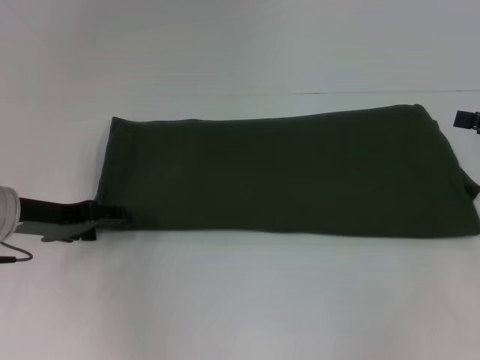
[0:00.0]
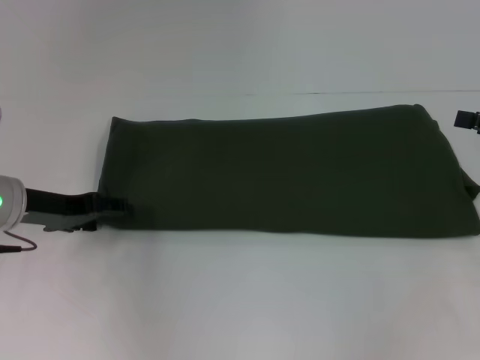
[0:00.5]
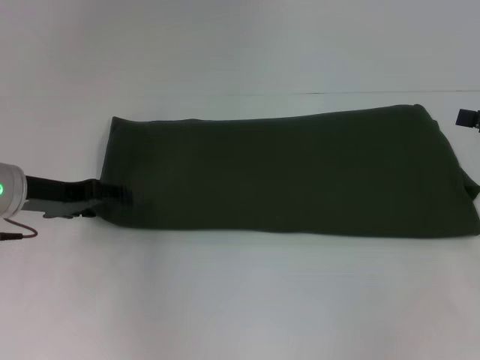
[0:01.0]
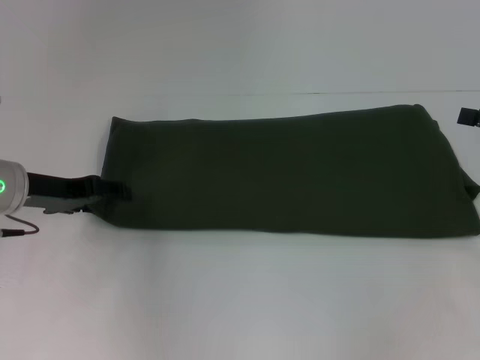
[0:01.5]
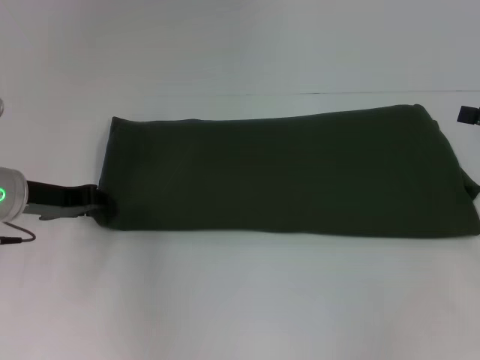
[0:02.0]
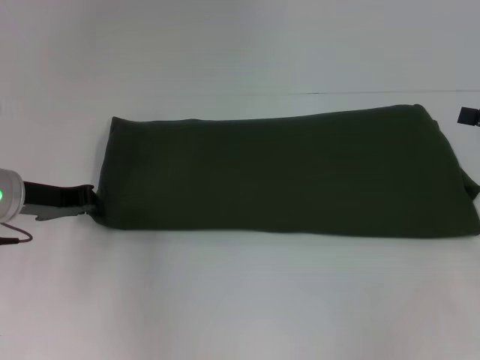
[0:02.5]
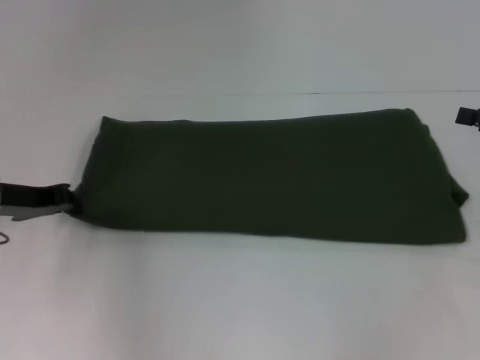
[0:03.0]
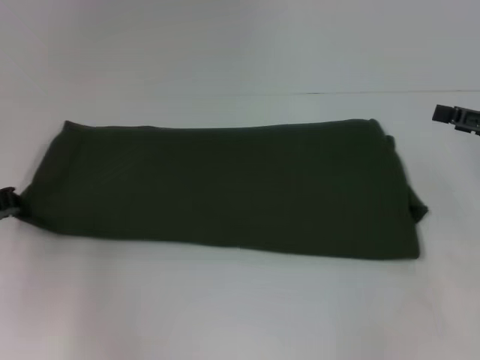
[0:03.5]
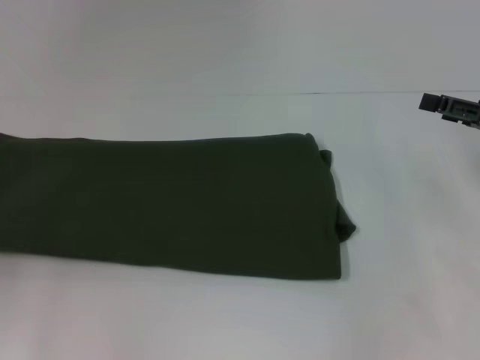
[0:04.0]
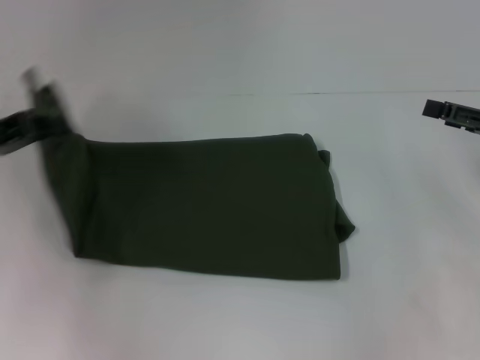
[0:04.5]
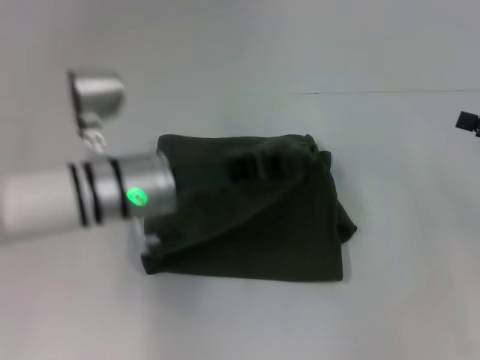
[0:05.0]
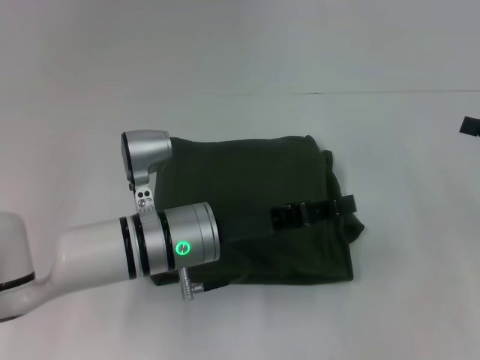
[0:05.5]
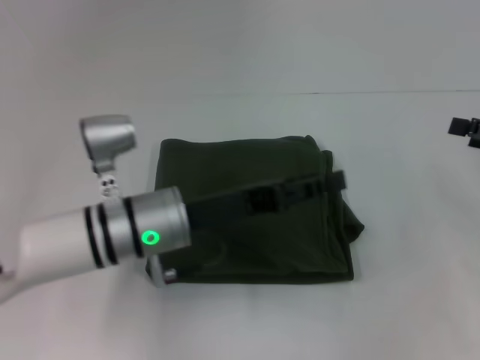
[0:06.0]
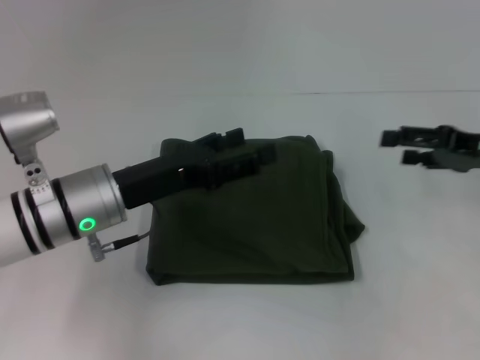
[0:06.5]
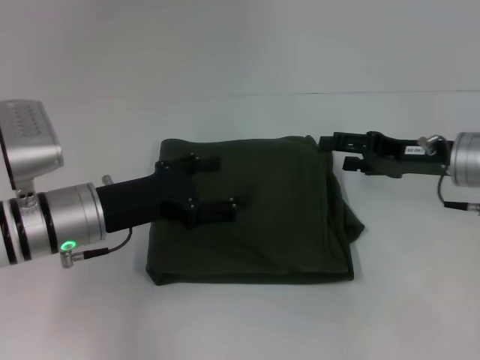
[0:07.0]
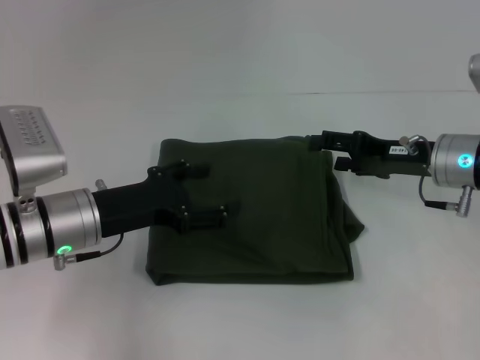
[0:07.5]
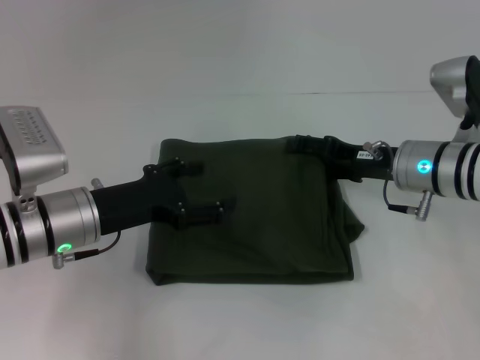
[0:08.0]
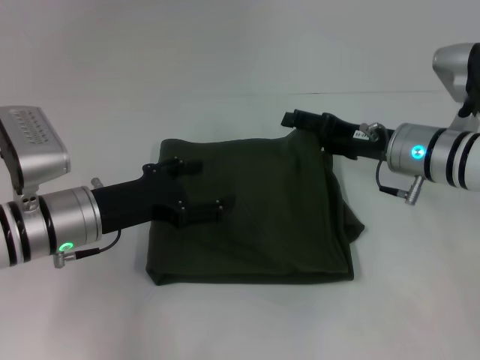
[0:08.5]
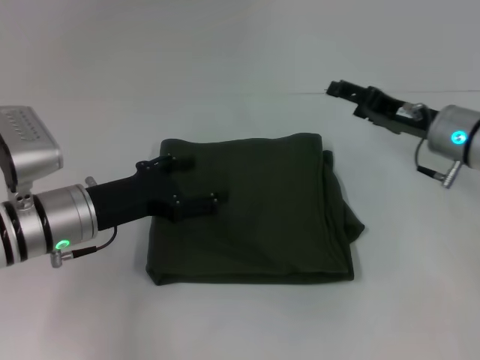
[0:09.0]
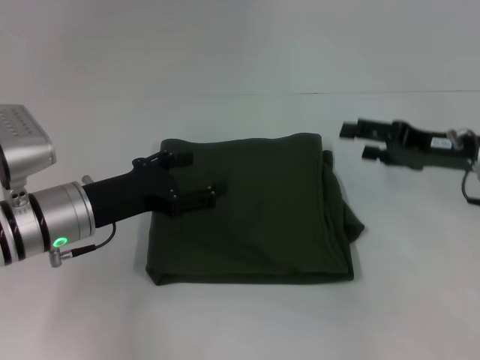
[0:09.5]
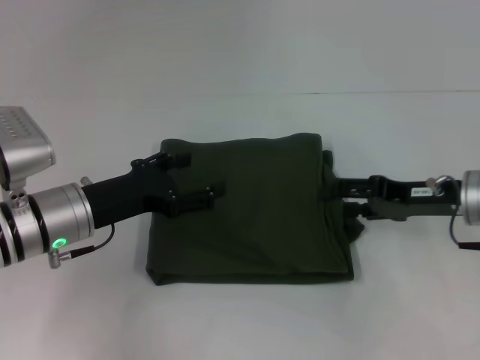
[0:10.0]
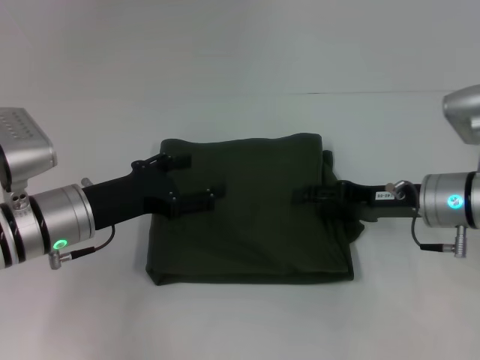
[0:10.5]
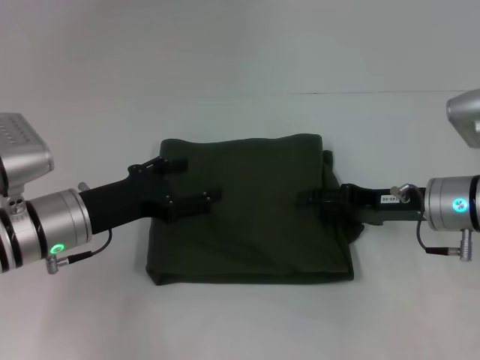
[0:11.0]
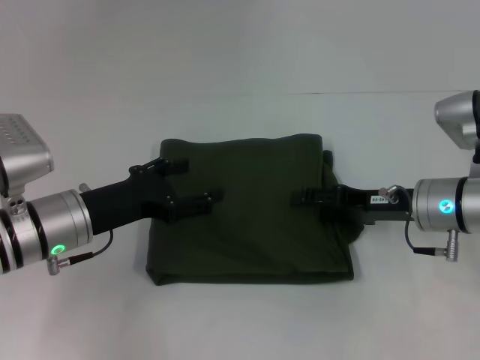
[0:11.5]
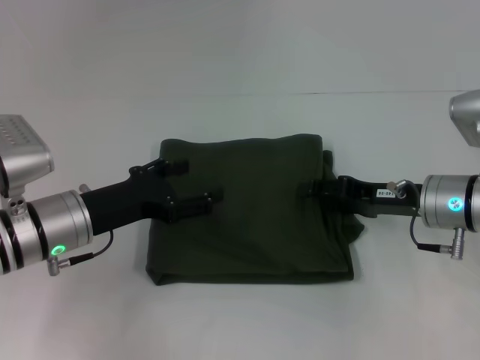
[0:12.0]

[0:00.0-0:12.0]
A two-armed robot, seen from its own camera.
Step, 0:00.0 to 0:06.0: Fold the clothes with your left hand.
0:00.0 to 0:02.0: The left gripper closes its fingers.
0:02.0 to 0:04.0: The left gripper moves to the left and backward, some 15 cm, and closes.
0:04.0 to 0:06.0: The left gripper moves to the right, approximately 30 cm, and opens its fingers.
0:06.0 to 0:08.0: The left gripper shifts about 10 cm to the left, and opens its fingers, while the right gripper shifts about 15 cm to the left.
0:08.0 to 0:10.0: The right gripper heads to the right, covering about 5 cm.
0:10.0 to 0:12.0: The grippers make only small movements.

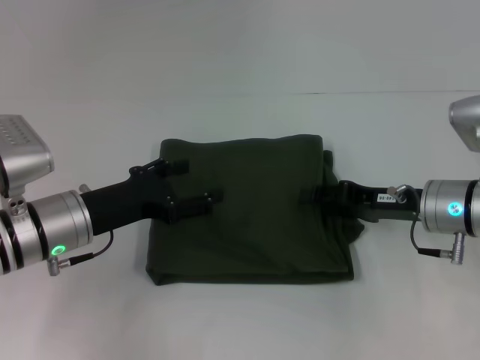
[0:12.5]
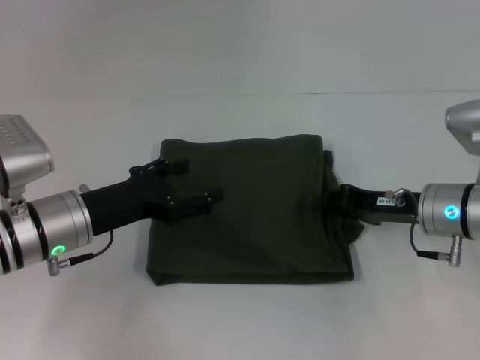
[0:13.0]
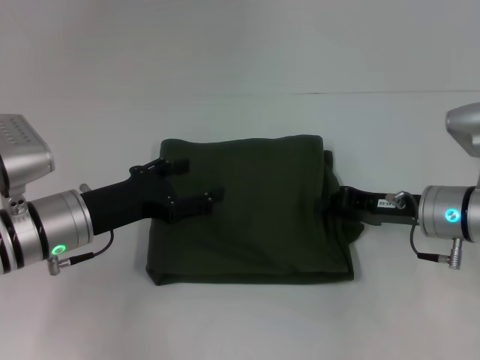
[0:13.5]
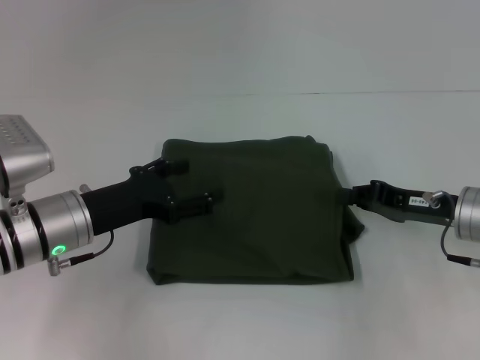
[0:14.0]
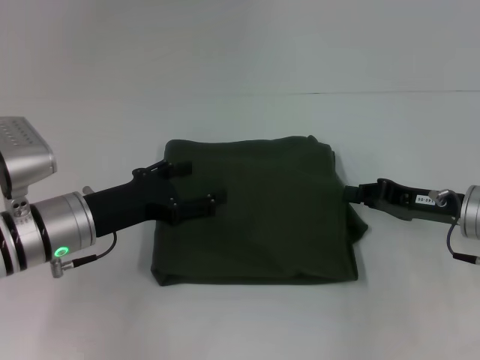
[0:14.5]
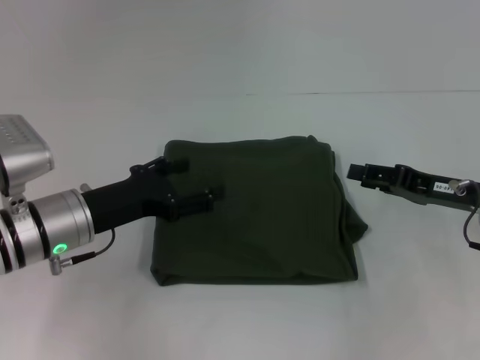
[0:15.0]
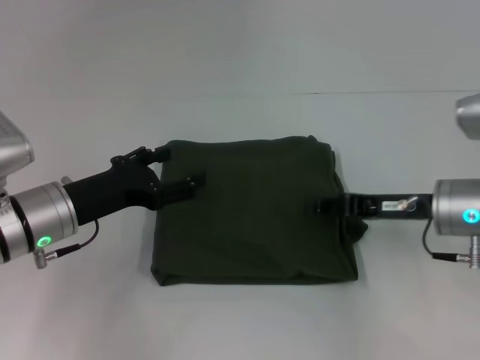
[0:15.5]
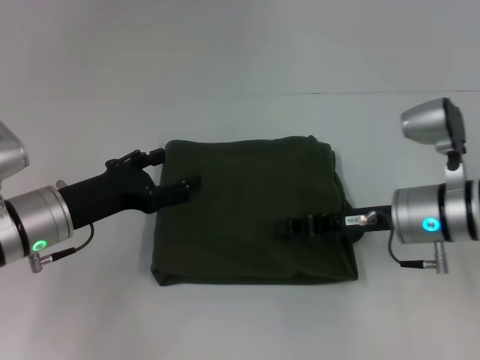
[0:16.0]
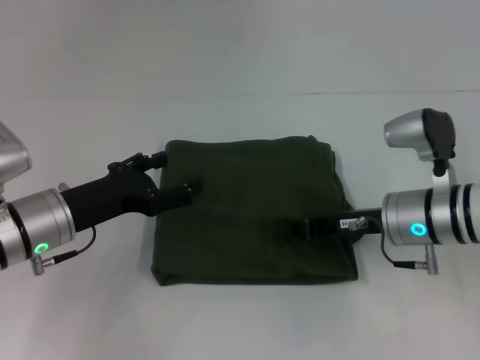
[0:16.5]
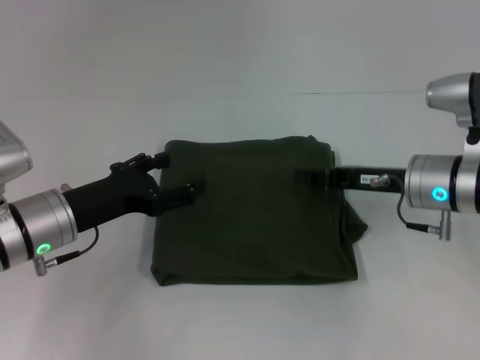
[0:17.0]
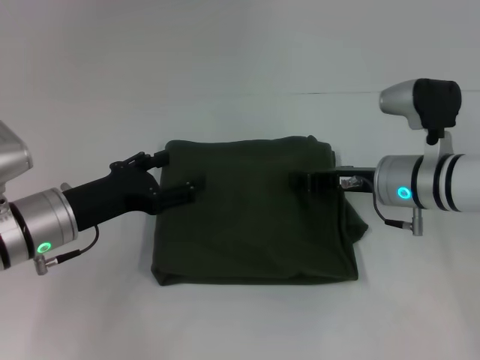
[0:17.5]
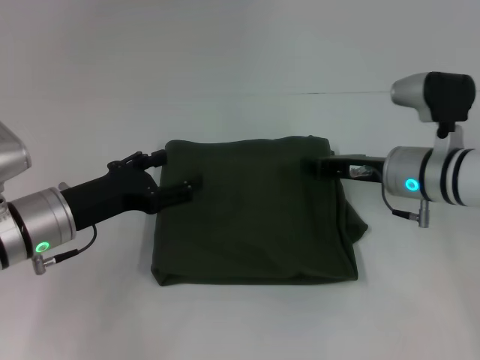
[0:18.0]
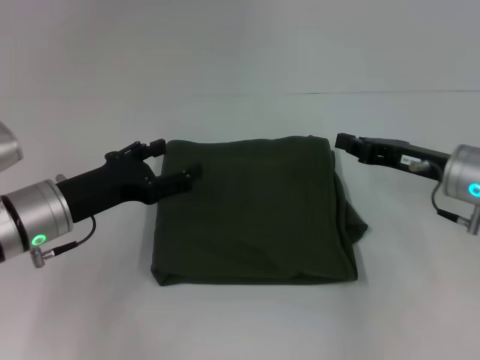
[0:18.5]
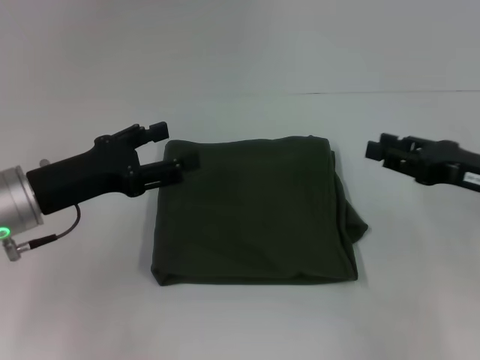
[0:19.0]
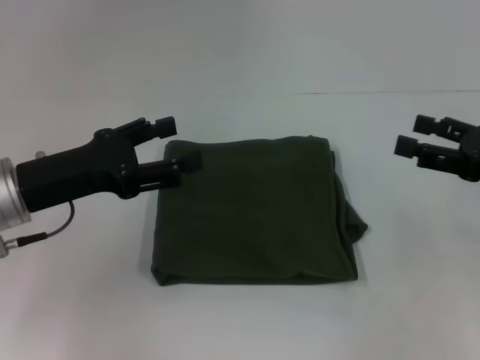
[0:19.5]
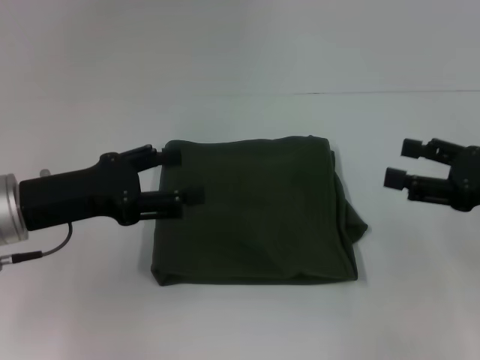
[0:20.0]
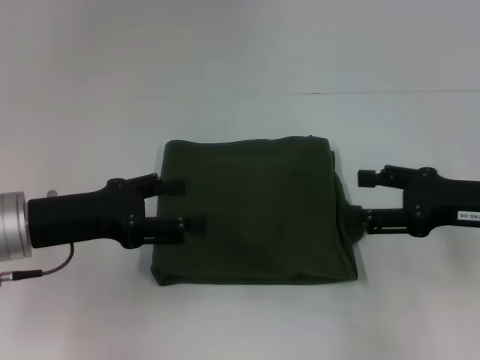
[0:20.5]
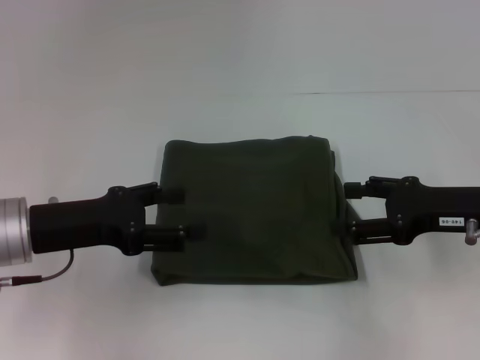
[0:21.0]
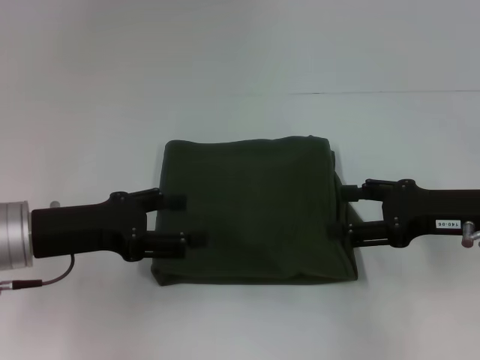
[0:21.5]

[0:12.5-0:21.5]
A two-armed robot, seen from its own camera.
0:12.5 to 0:14.5: The right gripper closes its fingers.
0:14.5 to 0:17.0: The right gripper travels to the left by approximately 5 cm, and opens and closes again.
0:17.0 to 0:19.5: The right gripper is displaced to the right and backward by about 15 cm, and opens up; the left gripper travels upward by some 5 cm.
0:19.5 to 0:21.5: The right gripper heads to the left, covering roughly 5 cm.

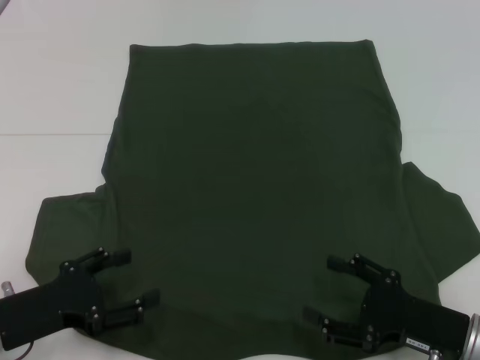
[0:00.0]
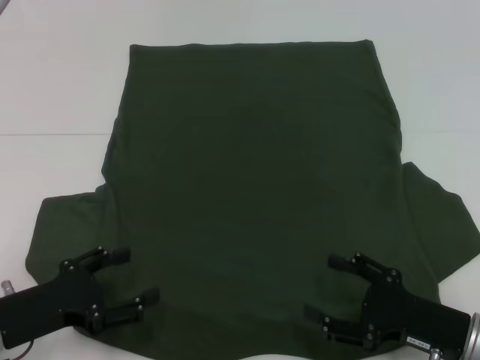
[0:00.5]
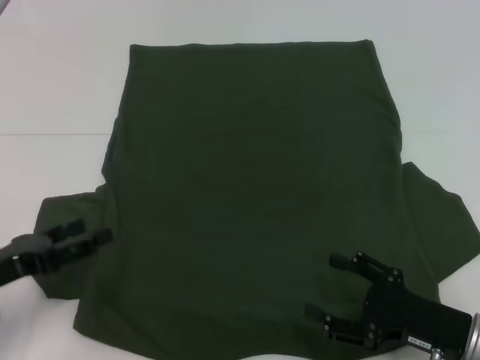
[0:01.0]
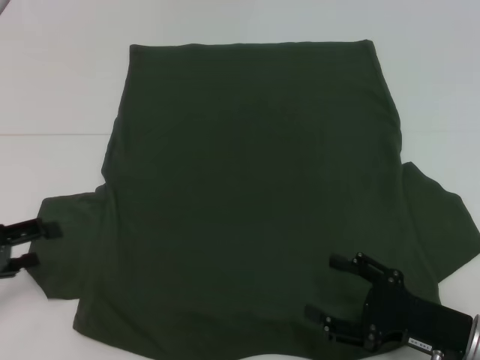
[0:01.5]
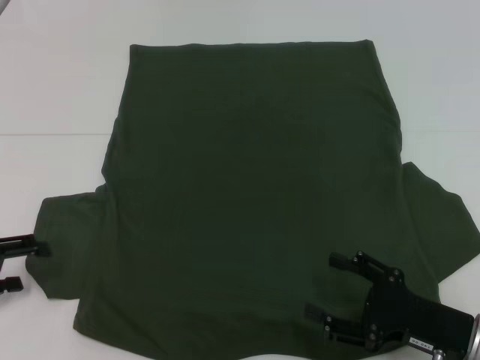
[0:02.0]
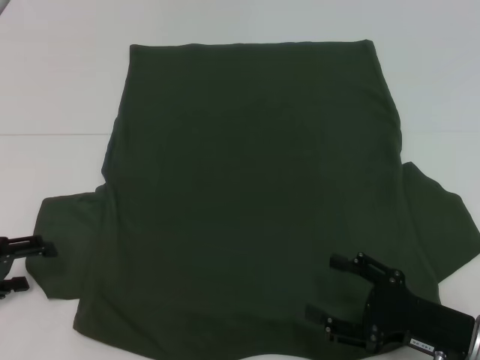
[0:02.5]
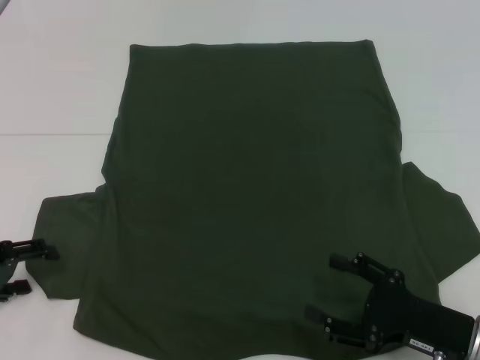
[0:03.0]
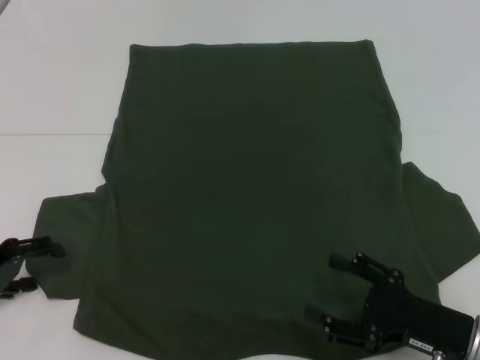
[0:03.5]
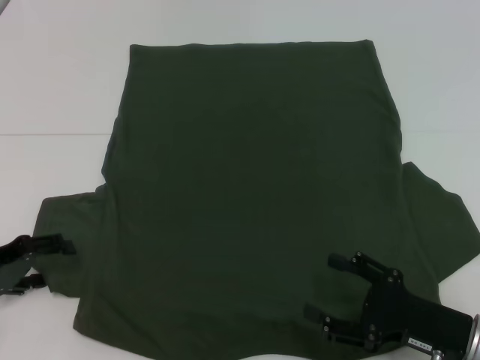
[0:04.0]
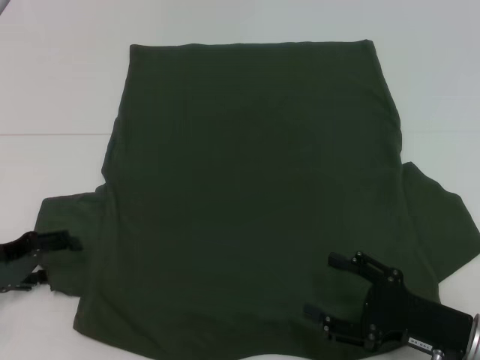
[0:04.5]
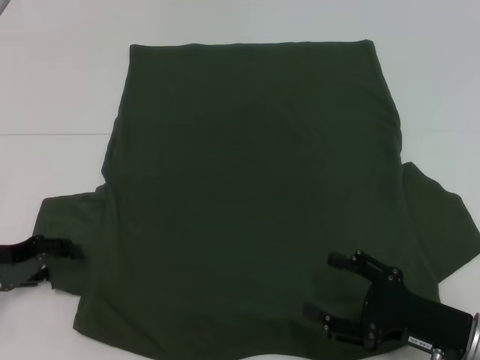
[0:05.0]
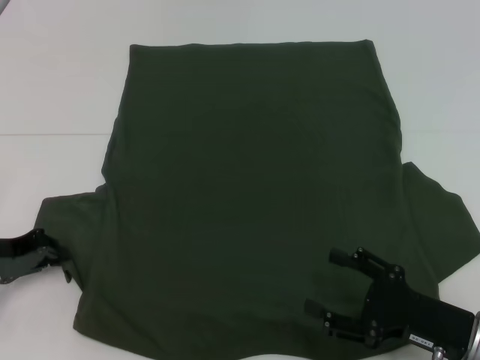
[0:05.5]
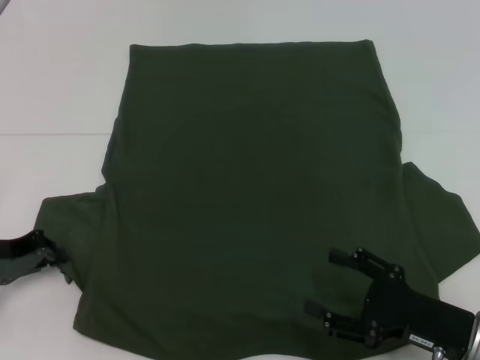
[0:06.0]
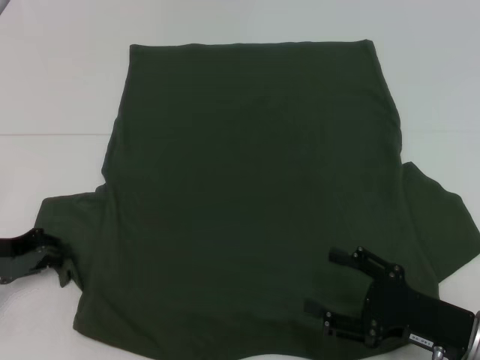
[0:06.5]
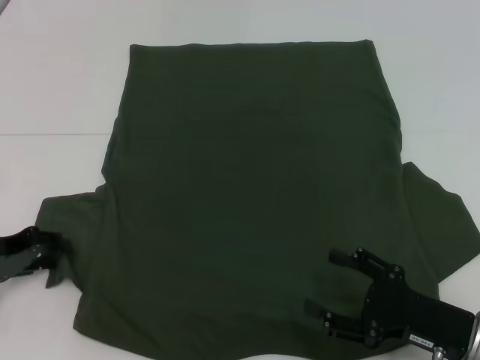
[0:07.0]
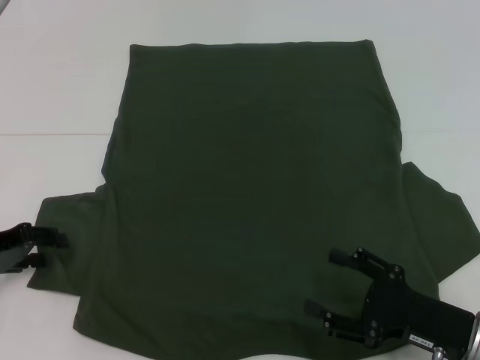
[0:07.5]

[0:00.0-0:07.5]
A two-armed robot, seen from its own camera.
0:00.0 to 0:02.0: The left gripper shifts about 10 cm to the left and forward.
0:02.0 to 0:04.0: The grippers stay close to where they were, moving slightly.
0:04.0 to 0:05.5: The left gripper closes up.
0:05.5 to 0:07.5: The grippers stay close to where they were, moving slightly.
